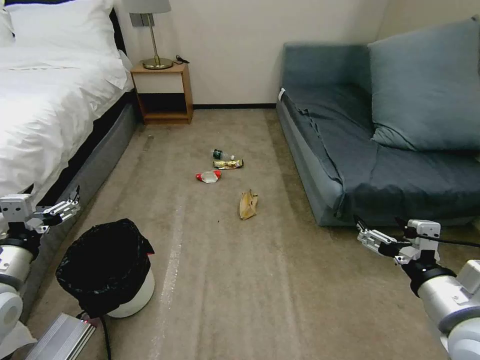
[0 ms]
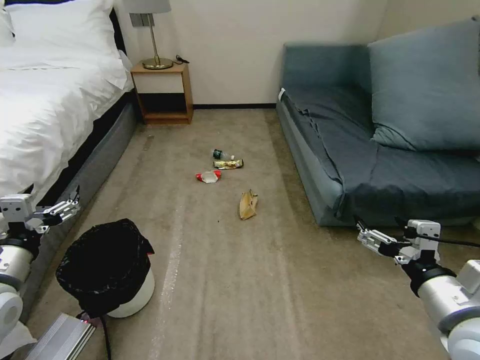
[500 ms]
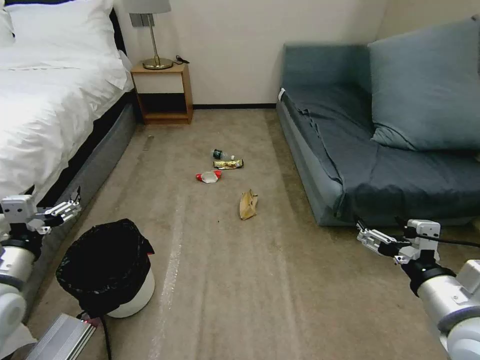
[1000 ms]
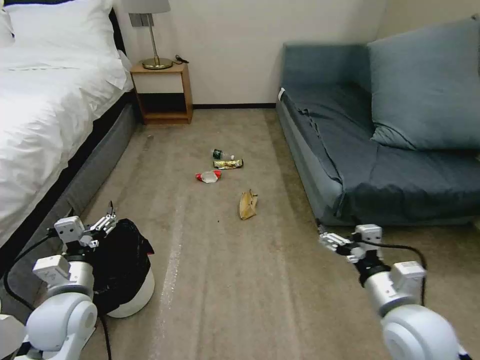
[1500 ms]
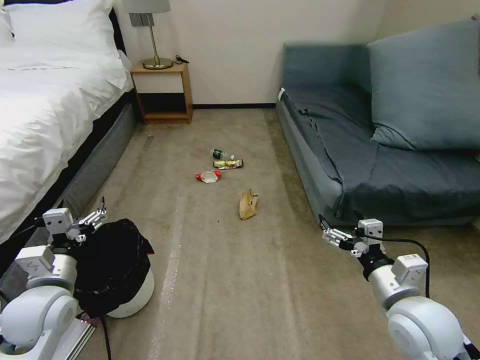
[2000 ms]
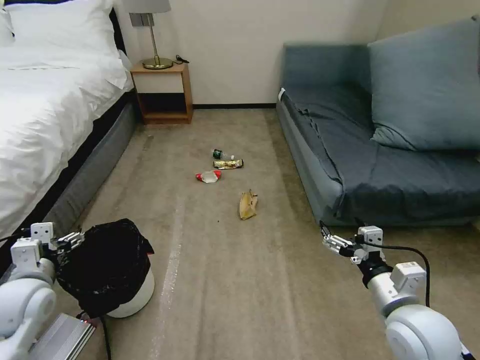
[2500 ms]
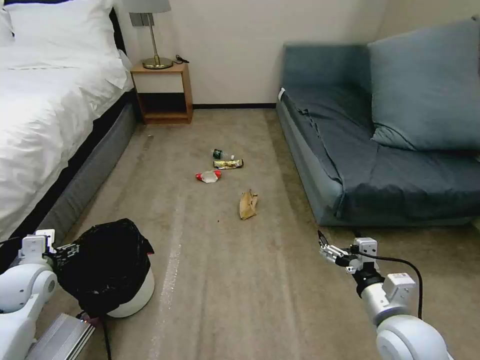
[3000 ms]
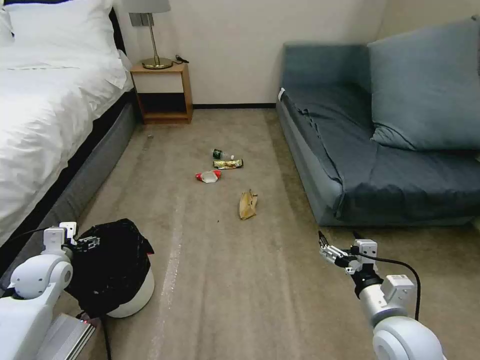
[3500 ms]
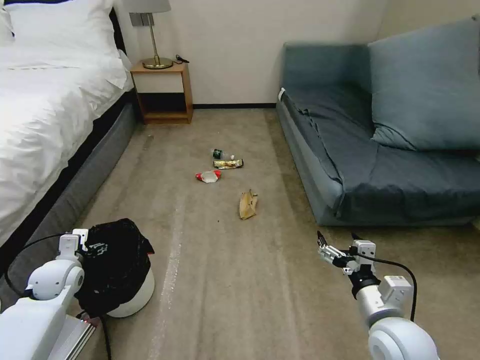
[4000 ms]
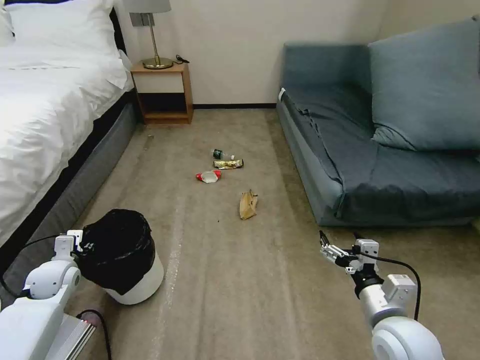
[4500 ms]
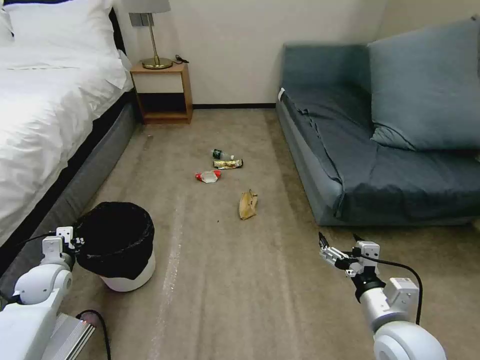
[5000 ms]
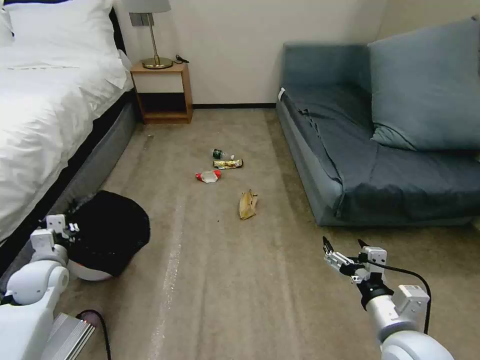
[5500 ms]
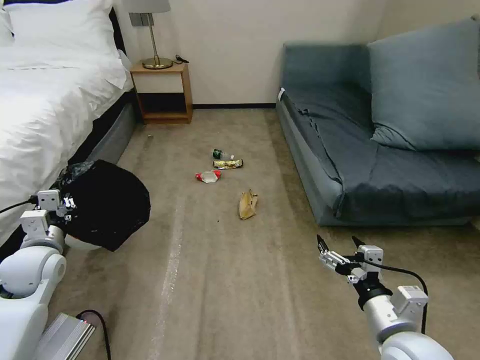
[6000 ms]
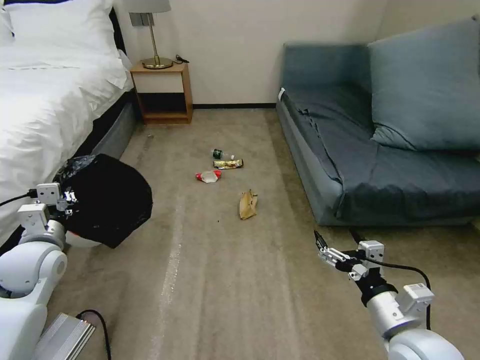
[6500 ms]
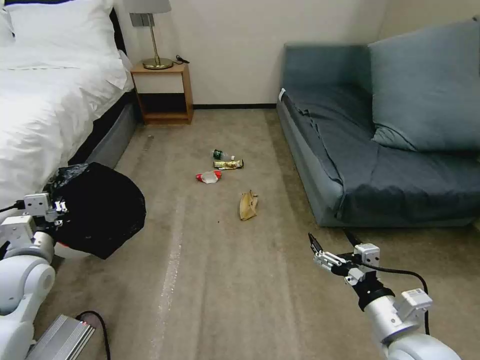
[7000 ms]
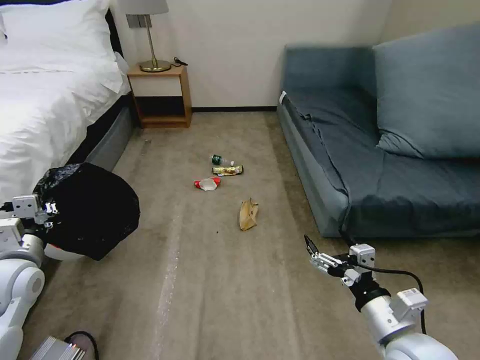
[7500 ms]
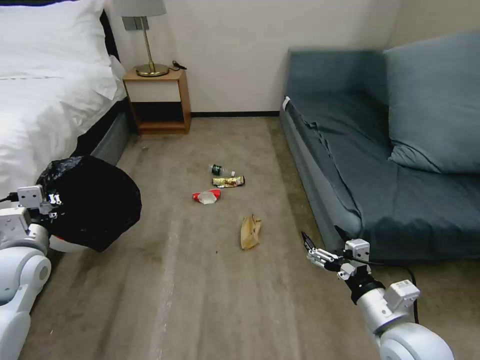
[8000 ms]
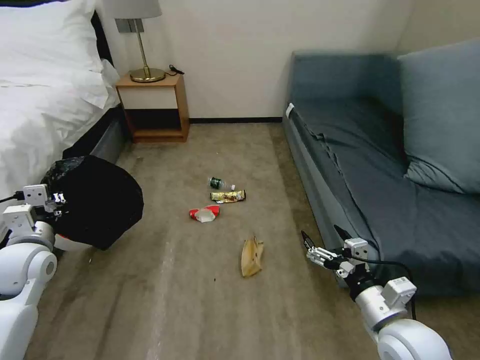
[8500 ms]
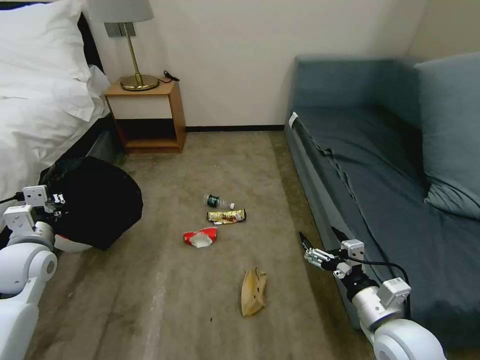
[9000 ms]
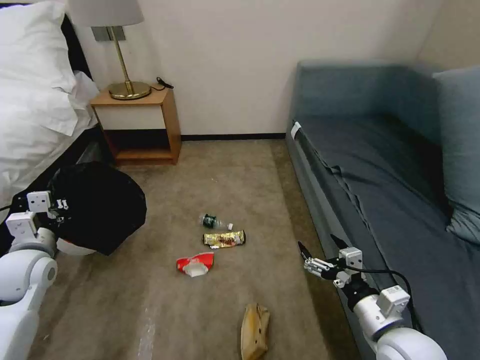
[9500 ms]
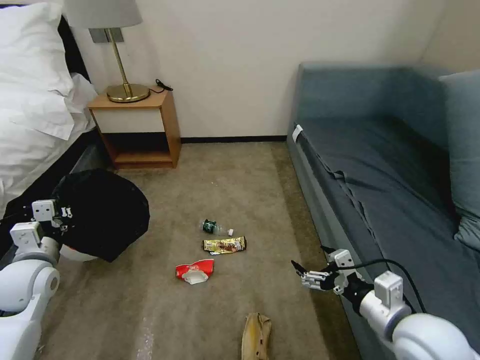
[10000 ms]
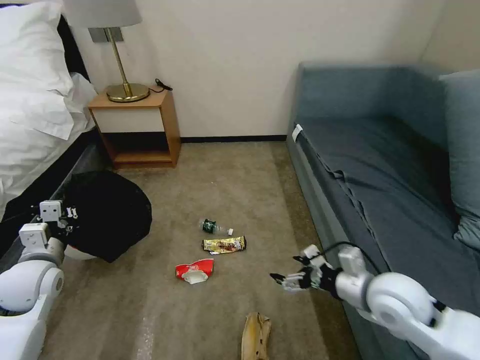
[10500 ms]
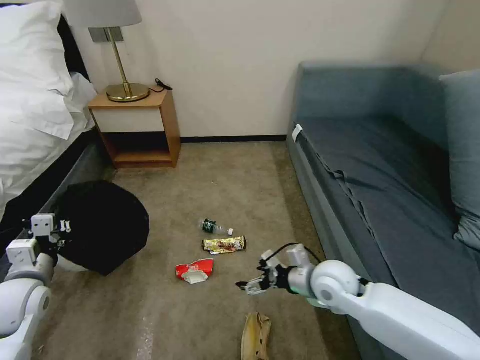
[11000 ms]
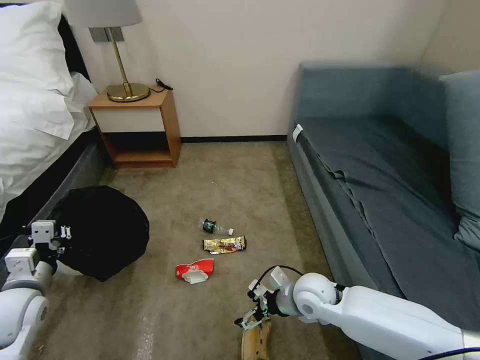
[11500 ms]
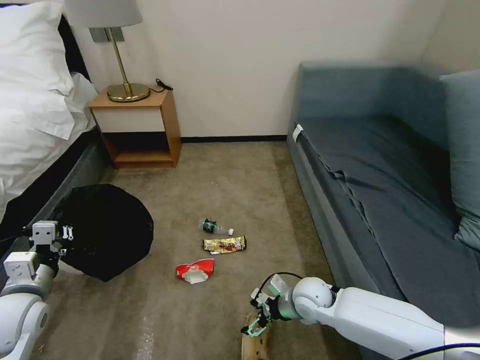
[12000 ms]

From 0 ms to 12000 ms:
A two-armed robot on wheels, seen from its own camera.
Task of the whole recording: Pick up the trash bin, then pick up the garbage on the floor and place it into the trash bin.
From 2000 ms to 4000 ms: The left gripper moves forward, to the left and downward, approximately 15 cm. Meanwhile the right gripper shifts by some 5 cm.
From 4000 ms to 6000 ms: The left gripper heads upward, covering approximately 10 cm, and closes its fingers.
From 10000 ms to 12000 ms: The right gripper shifts approximately 25 cm downward, forward and to the left. The left gripper is displaced backward by some 5 cm.

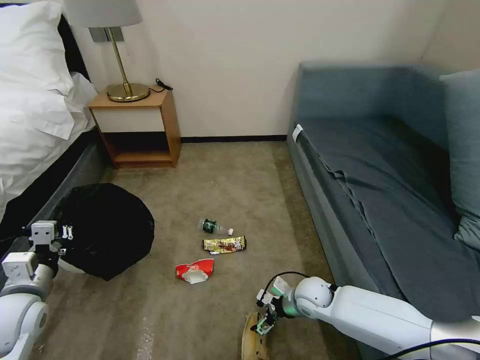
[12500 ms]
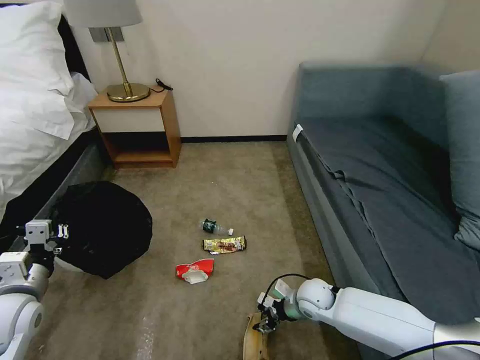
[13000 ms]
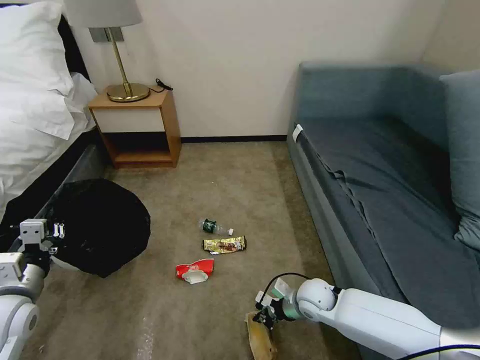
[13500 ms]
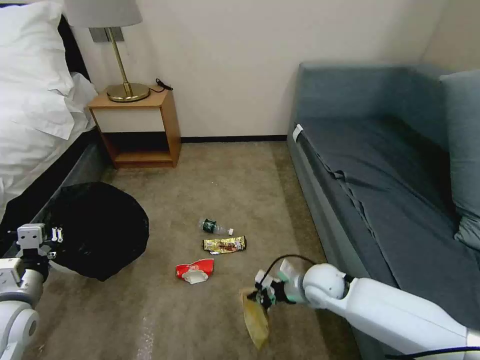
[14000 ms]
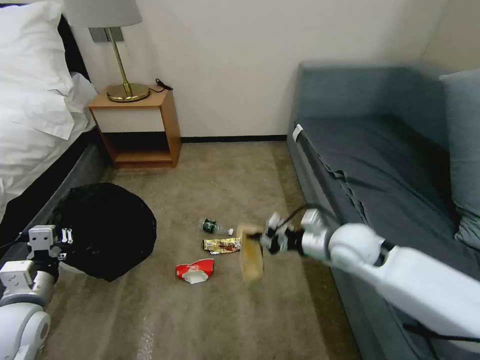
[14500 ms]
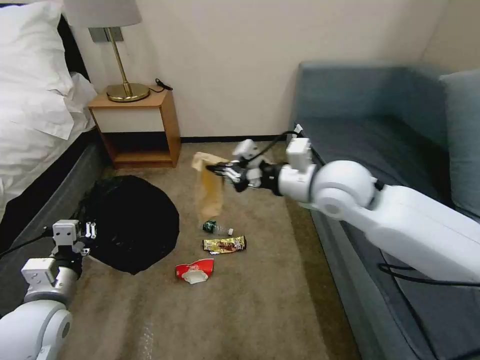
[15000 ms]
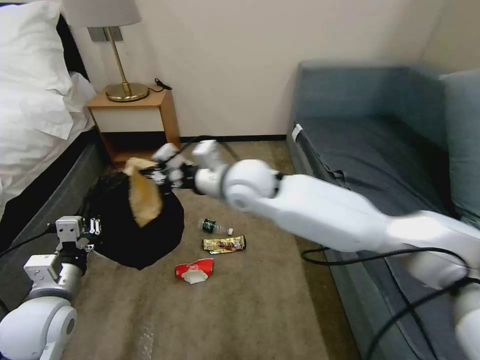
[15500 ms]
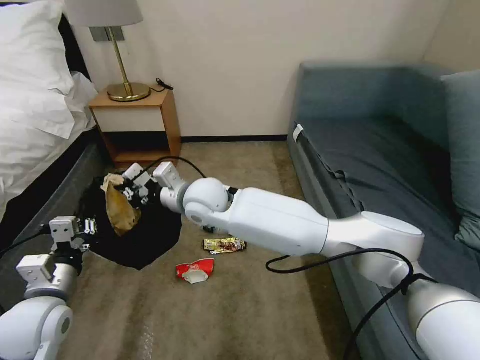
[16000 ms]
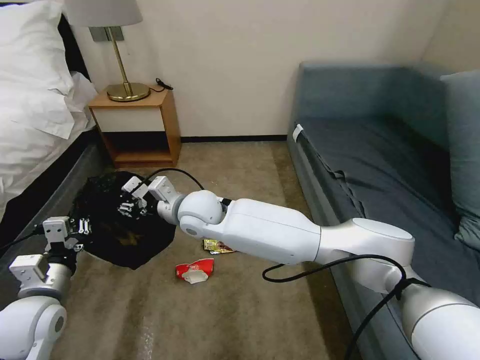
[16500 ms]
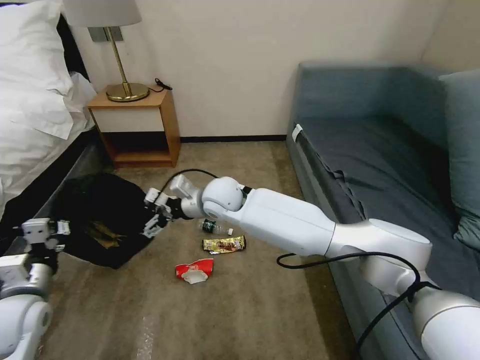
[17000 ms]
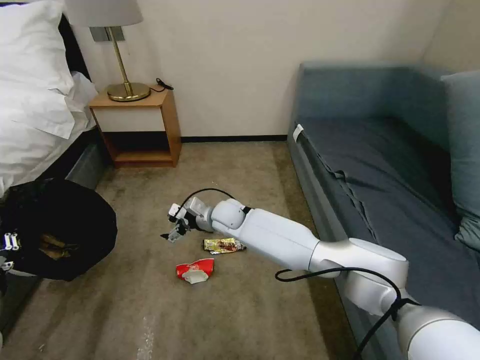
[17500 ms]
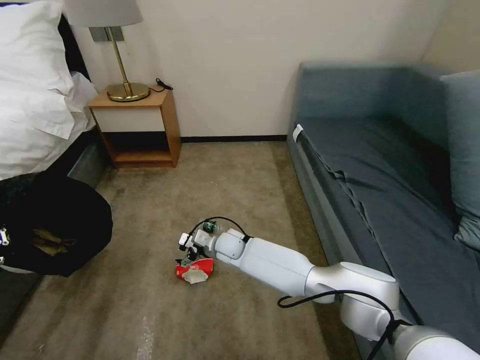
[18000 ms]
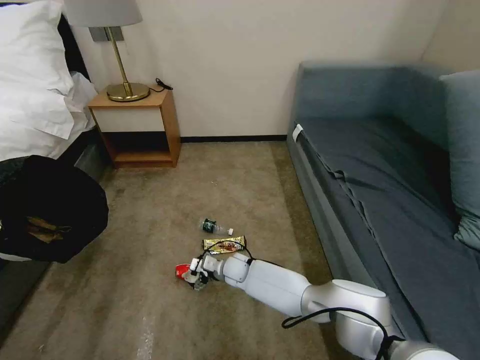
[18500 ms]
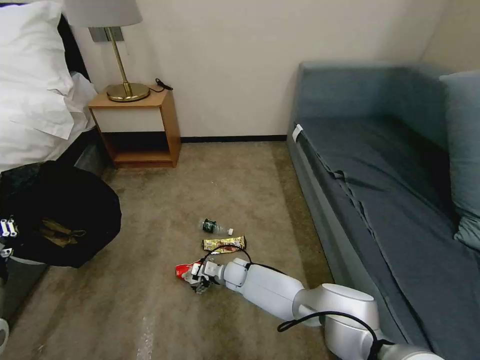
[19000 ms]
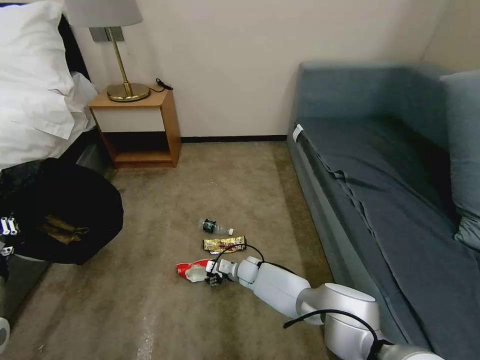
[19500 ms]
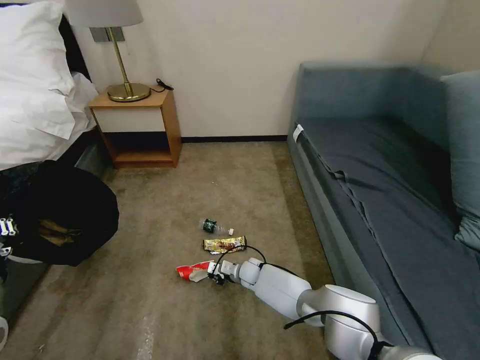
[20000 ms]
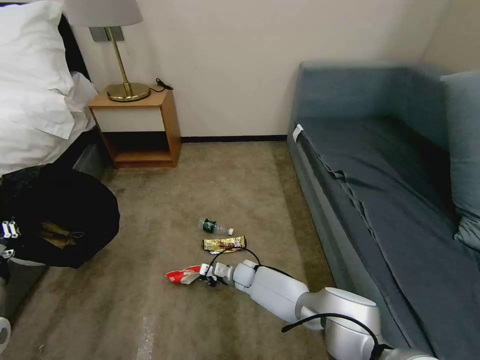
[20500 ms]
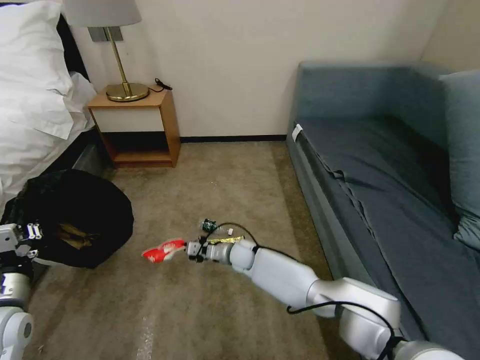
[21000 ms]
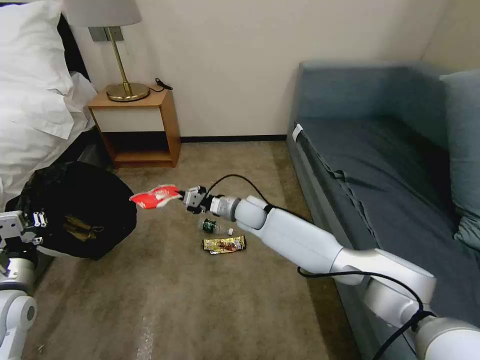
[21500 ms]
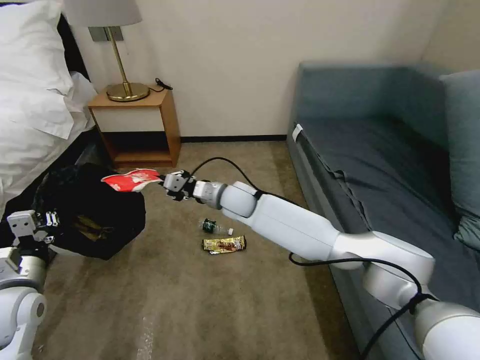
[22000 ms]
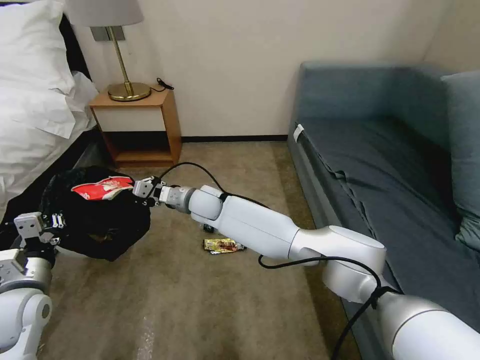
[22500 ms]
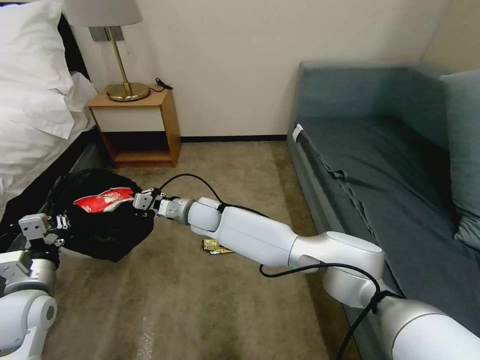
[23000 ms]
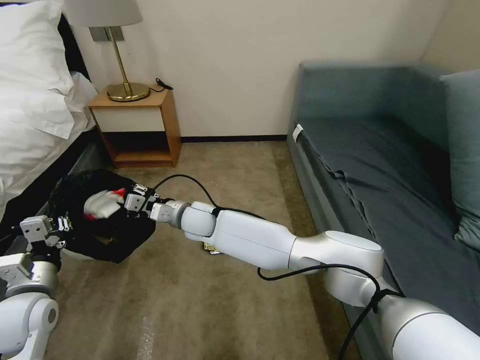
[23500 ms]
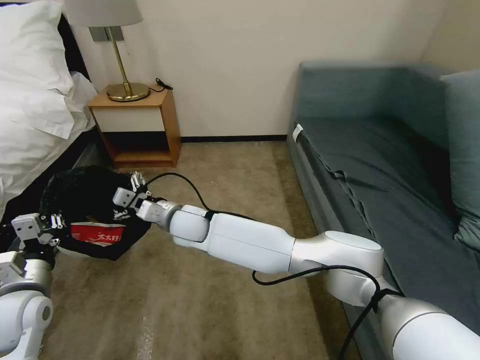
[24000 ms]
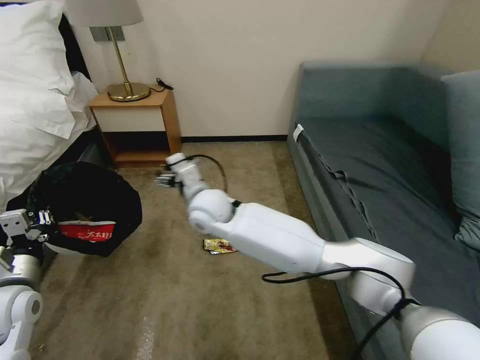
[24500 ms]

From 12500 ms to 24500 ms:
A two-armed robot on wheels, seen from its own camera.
Task of the whole recording: Pick up the trash bin, then pick up the garbage on the floor and place it into the trash bin.
From 12500 ms to 14500 ms: The right gripper shifts about 20 cm upward, and closes its fingers.
From 14500 ms to 16500 ms: The right gripper shifts approximately 35 cm to the left, and opens.
From 16500 ms to 18500 ms: The left gripper travels to the left by approximately 10 cm. Meanwhile the right gripper shifts approximately 30 cm downward, and opens its fingers.
From 18500 ms to 20500 ms: The right gripper is displaced downward by some 5 cm, and closes its fingers.
From 20500 ms to 22500 ms: The right gripper goes about 30 cm upward and to the left. The left gripper moves some 5 cm.
From 22500 ms to 24500 ms: The right gripper goes roughly 10 cm backward and upward, and opens its fingers.

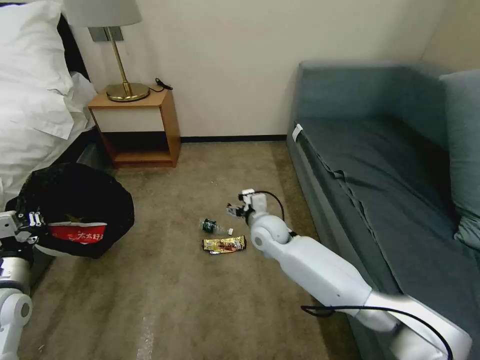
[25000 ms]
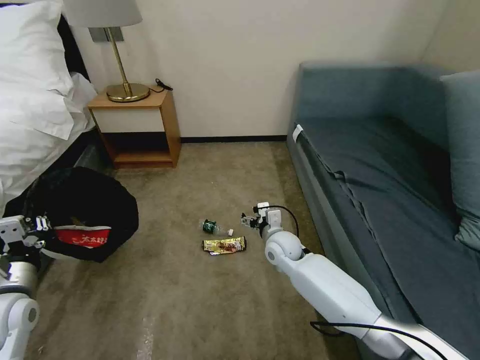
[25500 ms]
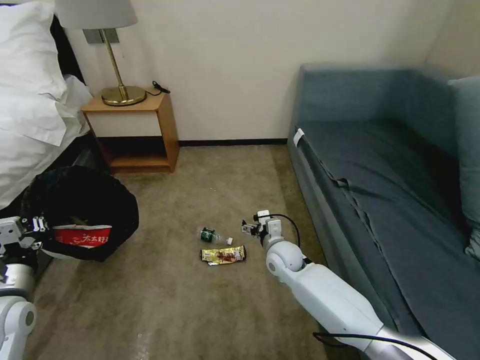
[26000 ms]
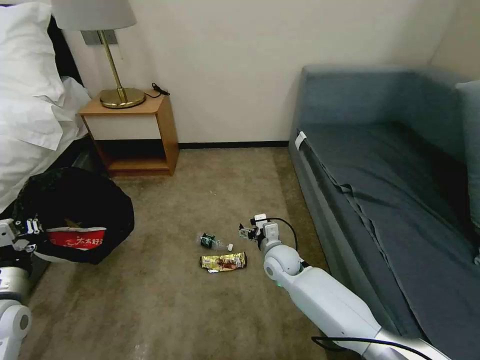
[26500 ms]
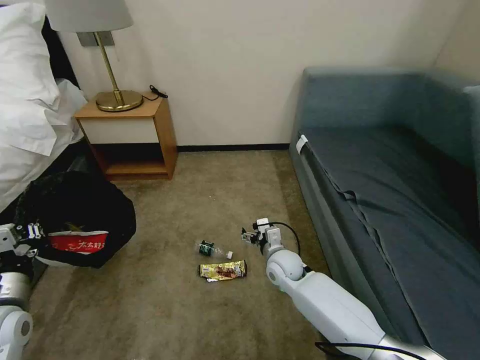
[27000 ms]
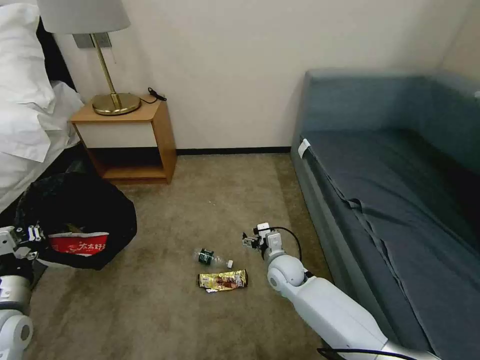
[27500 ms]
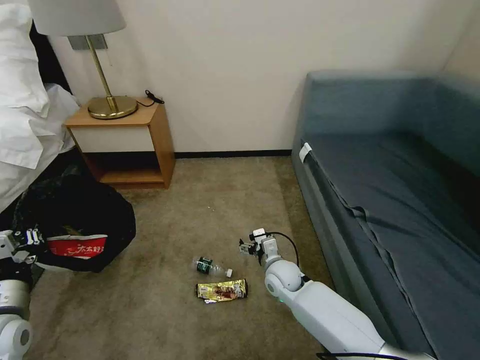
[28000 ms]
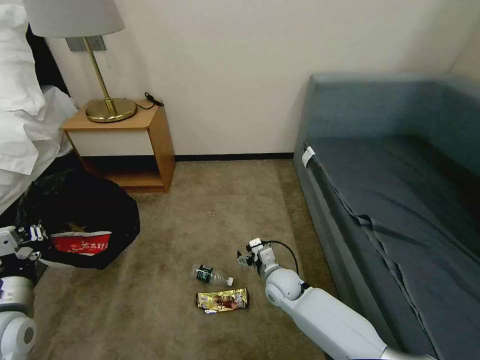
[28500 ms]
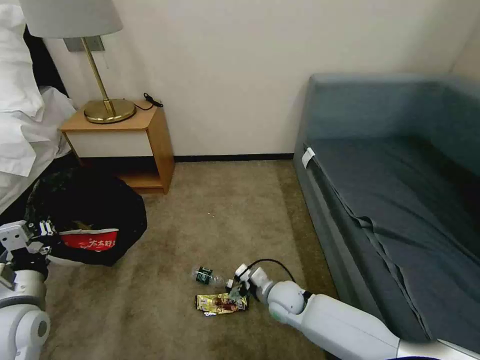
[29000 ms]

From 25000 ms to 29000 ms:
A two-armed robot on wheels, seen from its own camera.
Task of the whole recording: Pick up the trash bin, then pick up the garbage on the floor and place it into the trash bin.
From 25000 ms to 27000 ms: The right gripper goes roughly 10 cm downward, backward and to the right.
From 27000 ms to 29000 ms: The right gripper is displaced backward by approximately 5 cm.
